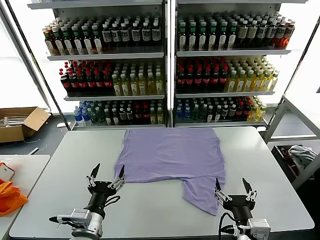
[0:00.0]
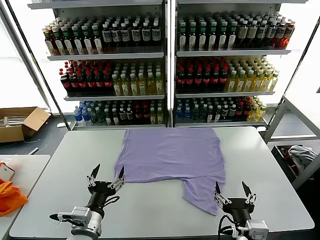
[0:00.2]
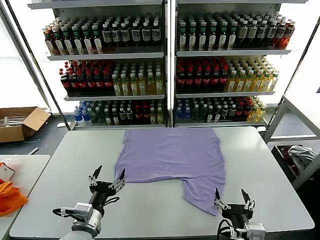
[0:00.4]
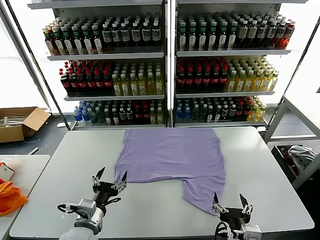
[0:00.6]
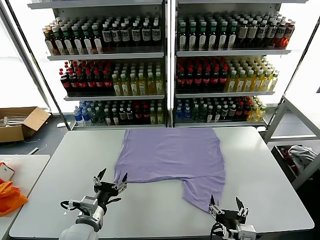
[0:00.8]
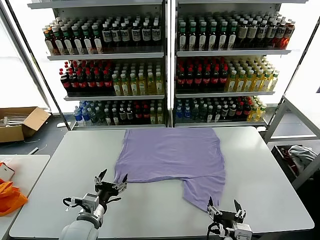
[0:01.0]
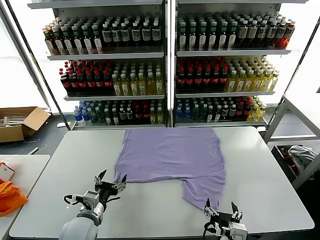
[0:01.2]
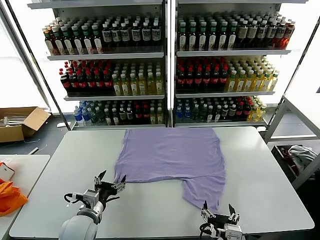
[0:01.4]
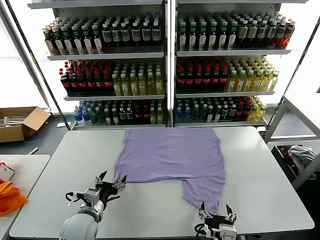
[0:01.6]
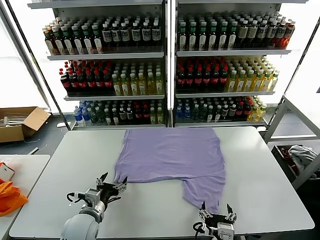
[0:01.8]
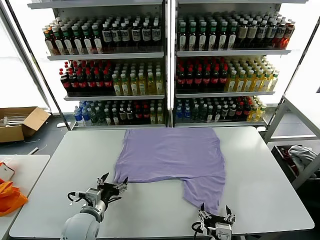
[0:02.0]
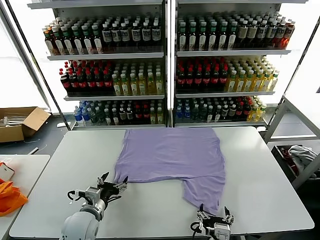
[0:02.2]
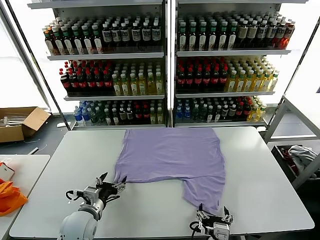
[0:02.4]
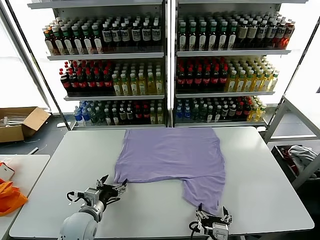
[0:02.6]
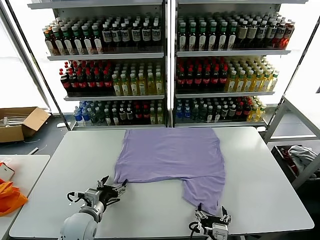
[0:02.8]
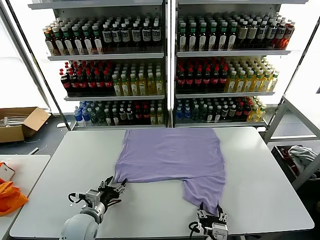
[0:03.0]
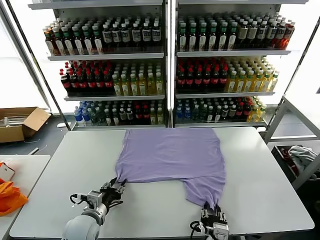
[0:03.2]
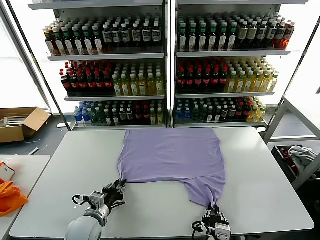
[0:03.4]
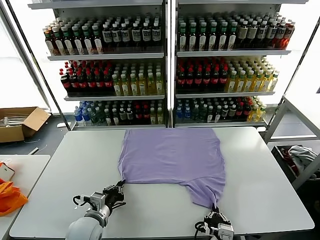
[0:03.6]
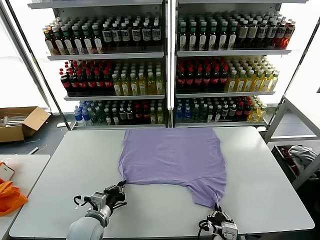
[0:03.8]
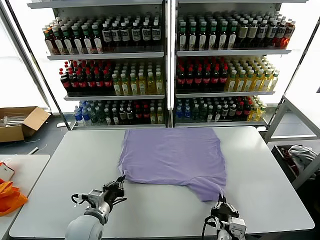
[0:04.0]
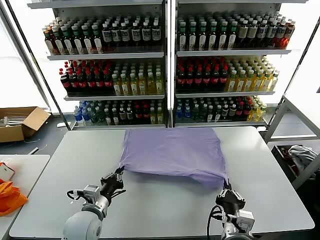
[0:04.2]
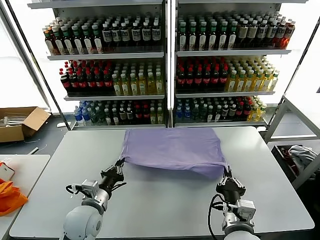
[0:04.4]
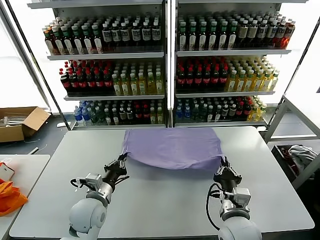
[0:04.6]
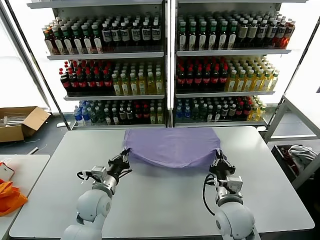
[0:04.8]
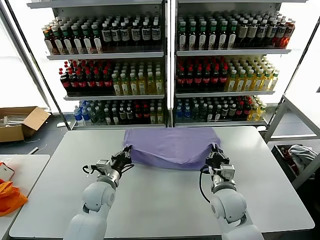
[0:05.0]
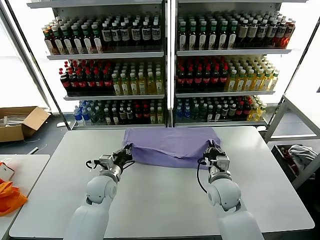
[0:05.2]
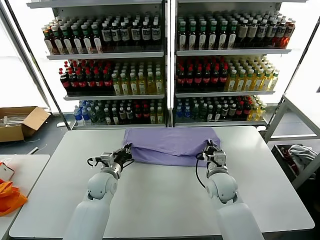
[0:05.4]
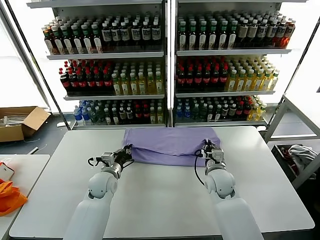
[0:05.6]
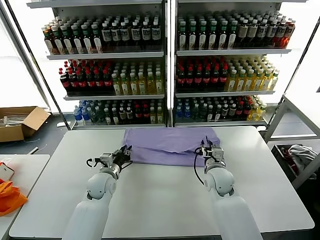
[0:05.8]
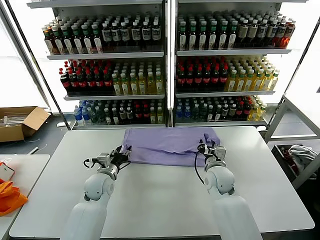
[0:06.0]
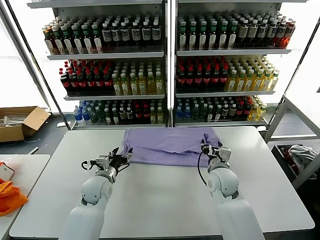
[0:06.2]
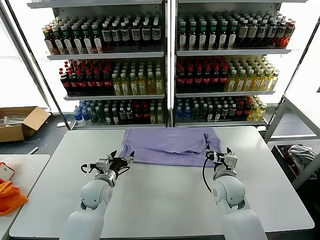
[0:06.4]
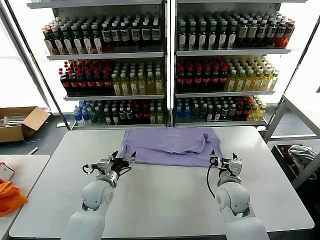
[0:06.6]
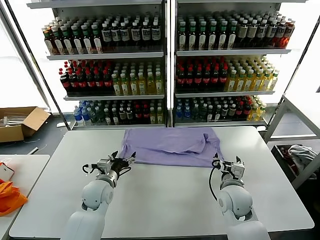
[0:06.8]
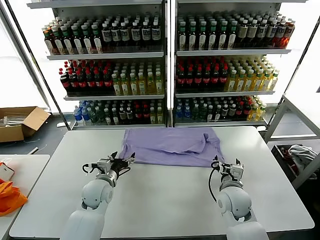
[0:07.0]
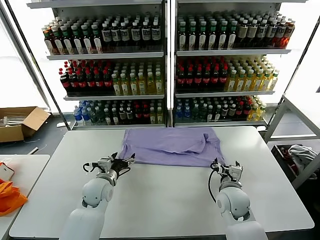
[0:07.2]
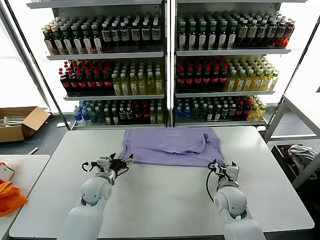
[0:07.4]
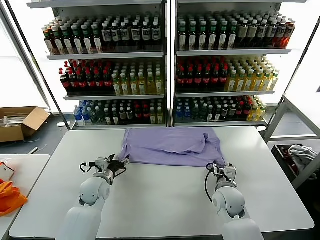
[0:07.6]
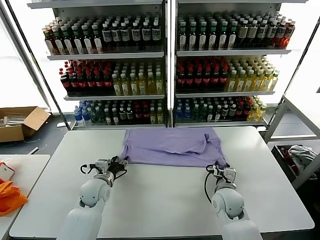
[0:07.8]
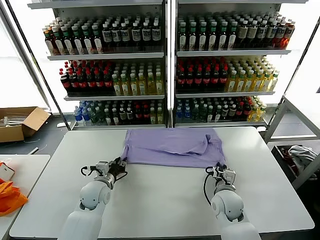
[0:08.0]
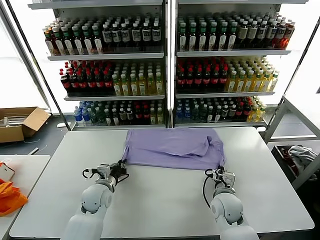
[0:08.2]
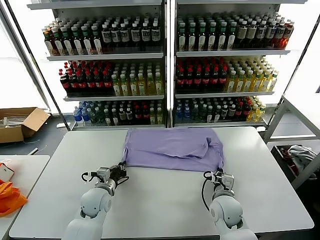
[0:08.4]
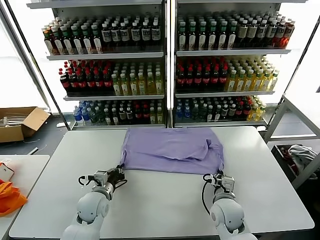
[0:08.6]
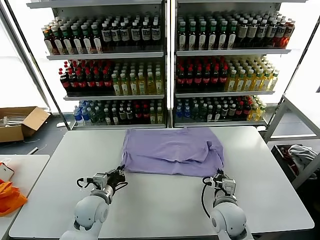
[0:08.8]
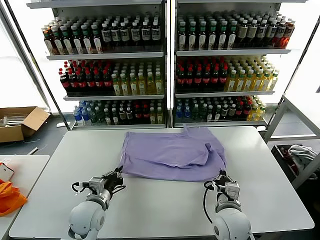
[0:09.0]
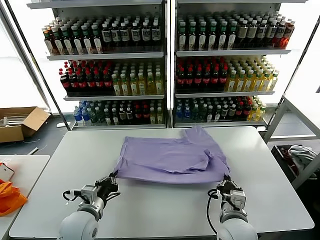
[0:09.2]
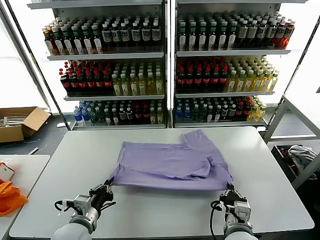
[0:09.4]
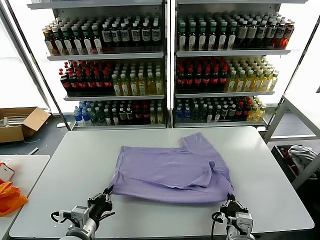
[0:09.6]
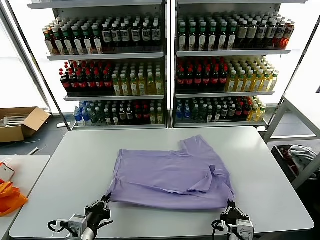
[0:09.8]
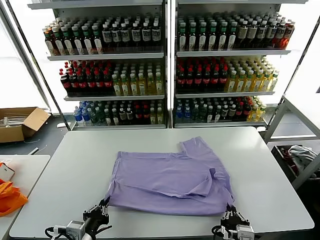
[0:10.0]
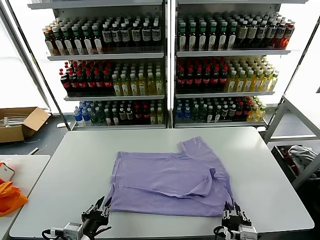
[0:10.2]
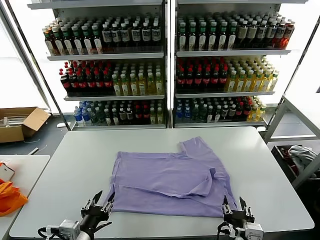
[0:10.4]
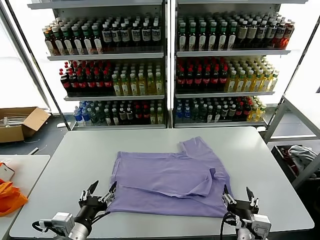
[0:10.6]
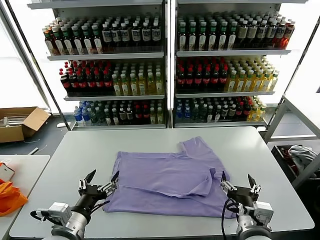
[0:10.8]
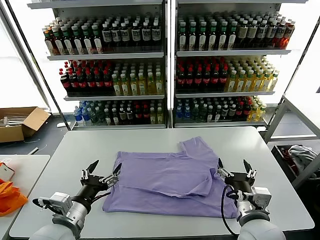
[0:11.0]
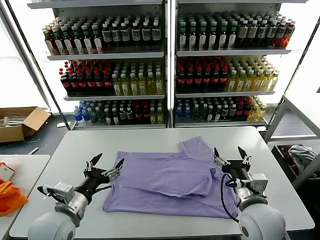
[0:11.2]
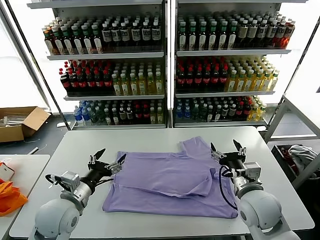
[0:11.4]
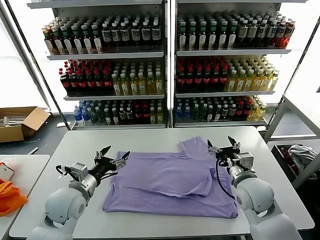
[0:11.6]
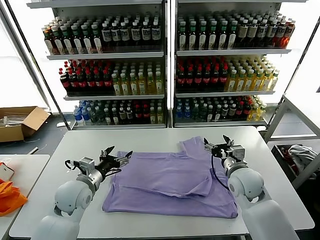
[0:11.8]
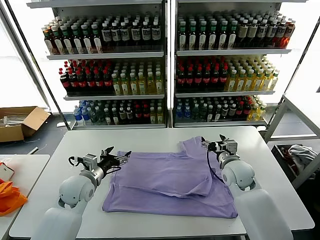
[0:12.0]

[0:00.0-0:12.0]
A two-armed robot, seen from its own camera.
Task of the whole recording: fold and organize the clothes.
Step, 0.0 to 4.0 s: use both grippers simultaneously to clamp the lower edge of the clothing fabric.
Step, 4.2 to 5.8 s: use both grippers to drag the lower edge of the fabric forward and fold it over the upper edge.
Step, 6.2 to 10.2 s: Drag the clothes downward with both gripper.
1.6 to 3.0 s: The right gripper closes.
3.0 to 4.4 s: The right gripper heads upward, to the right and forward, covering some 10 cm, and closes up. Meanwhile the left gripper moves approximately 5 cm, and closes up.
4.4 to 6.0 s: Both grippers move forward, some 15 cm. The left gripper opens; the right gripper opens up.
6.0 to 7.6 s: The right gripper is displaced backward by about 5 cm.
7.6 to 9.0 s: Both grippers travel together backward, some 10 cm. The left gripper closes up; the right gripper closes its fingers.
9.0 to 10.4 s: Both grippers travel together backward, some 15 cm. The right gripper opens up. Meanwhile the left gripper opens its fingers.
10.4 to 12.0 s: The two grippers go roughly 25 cm forward. The left gripper opens.

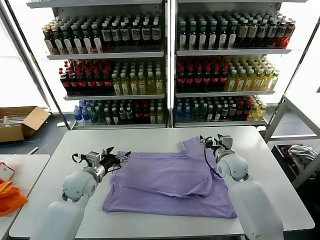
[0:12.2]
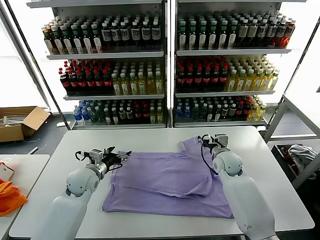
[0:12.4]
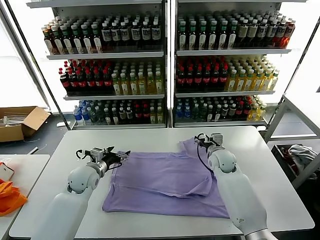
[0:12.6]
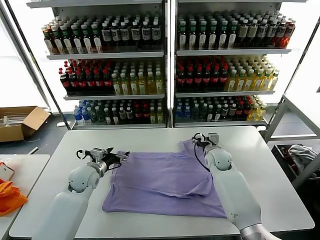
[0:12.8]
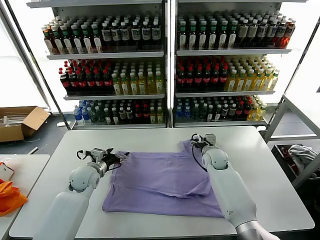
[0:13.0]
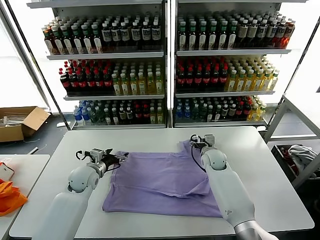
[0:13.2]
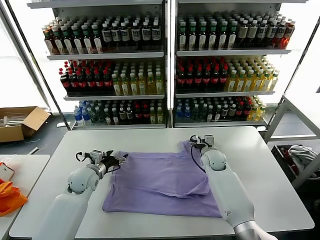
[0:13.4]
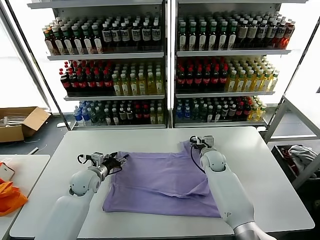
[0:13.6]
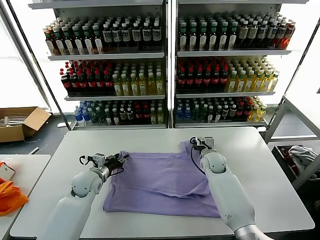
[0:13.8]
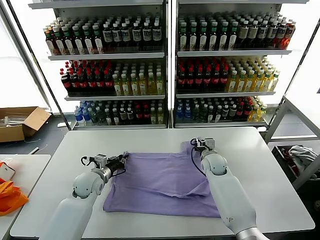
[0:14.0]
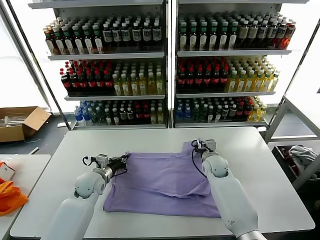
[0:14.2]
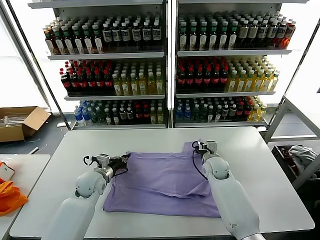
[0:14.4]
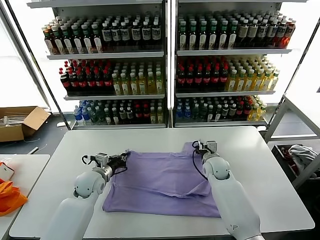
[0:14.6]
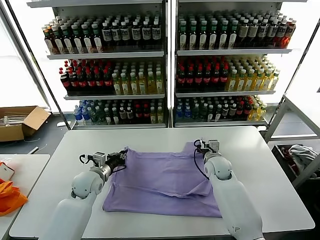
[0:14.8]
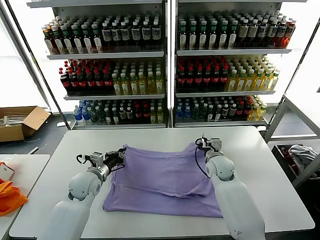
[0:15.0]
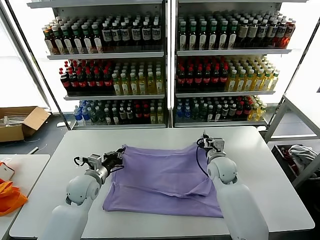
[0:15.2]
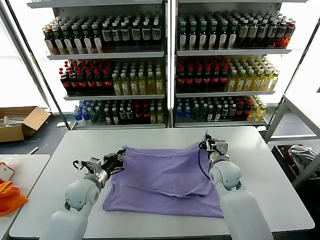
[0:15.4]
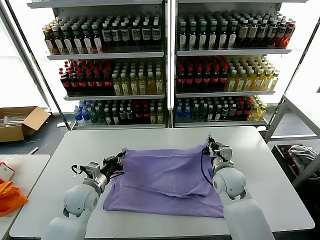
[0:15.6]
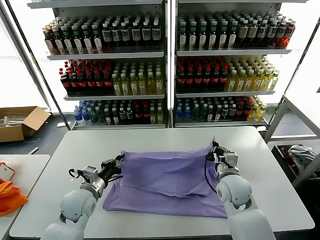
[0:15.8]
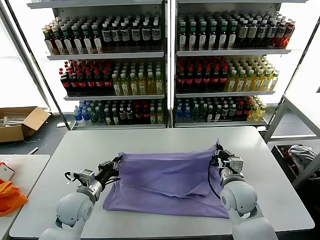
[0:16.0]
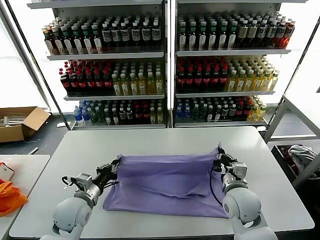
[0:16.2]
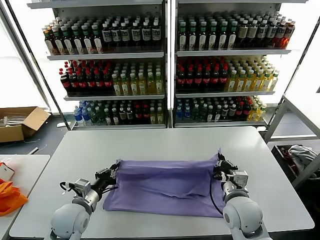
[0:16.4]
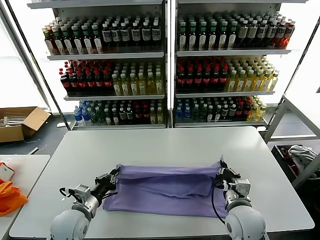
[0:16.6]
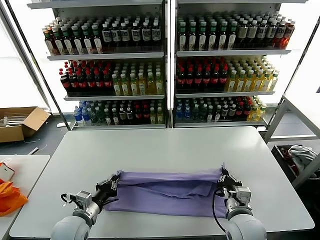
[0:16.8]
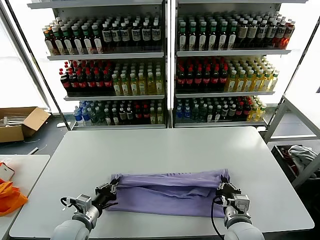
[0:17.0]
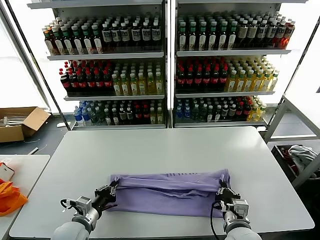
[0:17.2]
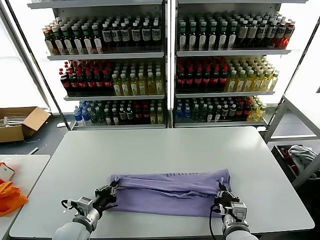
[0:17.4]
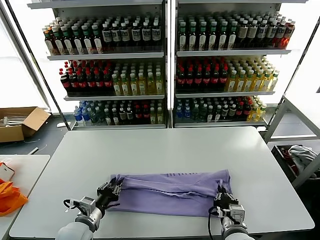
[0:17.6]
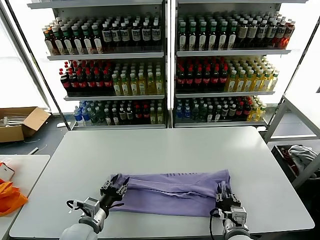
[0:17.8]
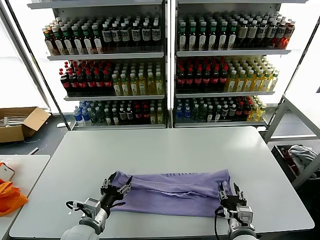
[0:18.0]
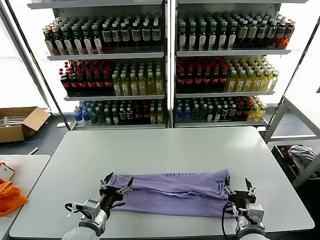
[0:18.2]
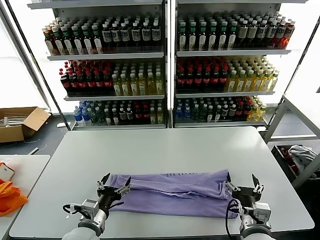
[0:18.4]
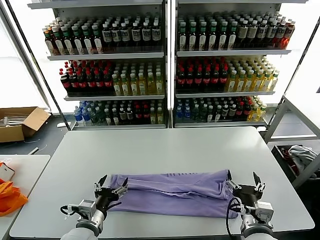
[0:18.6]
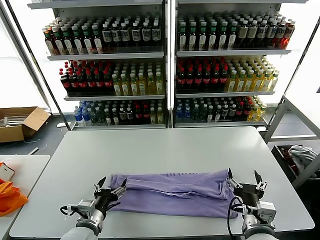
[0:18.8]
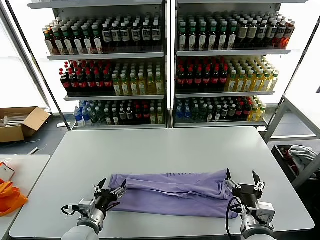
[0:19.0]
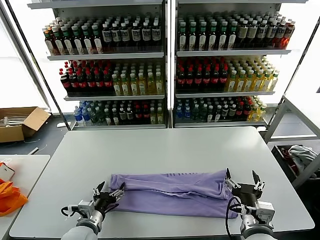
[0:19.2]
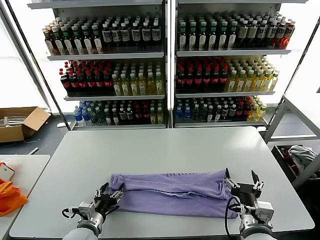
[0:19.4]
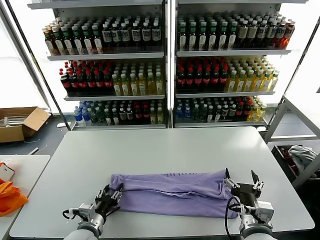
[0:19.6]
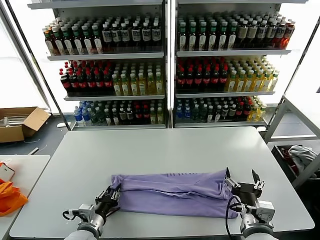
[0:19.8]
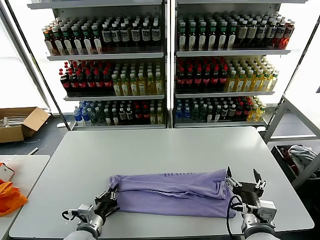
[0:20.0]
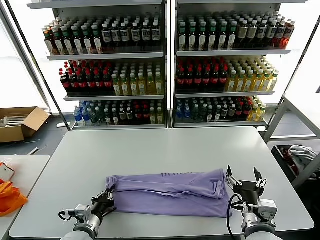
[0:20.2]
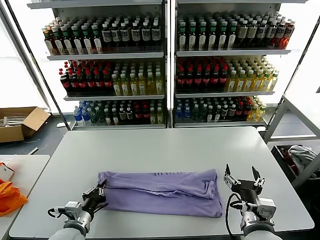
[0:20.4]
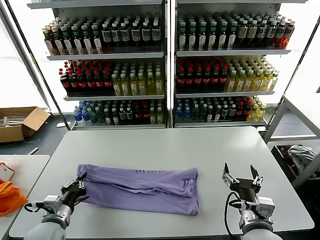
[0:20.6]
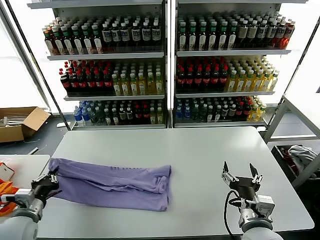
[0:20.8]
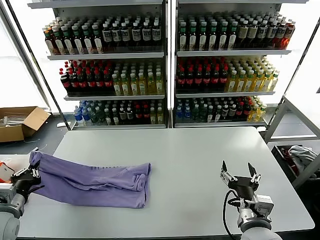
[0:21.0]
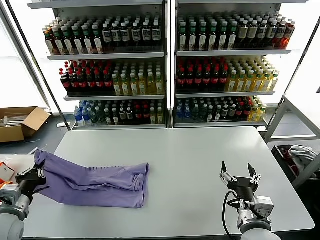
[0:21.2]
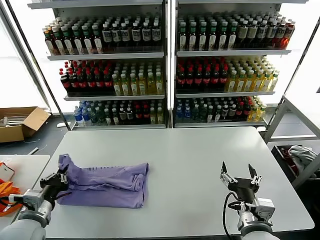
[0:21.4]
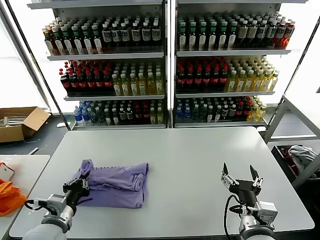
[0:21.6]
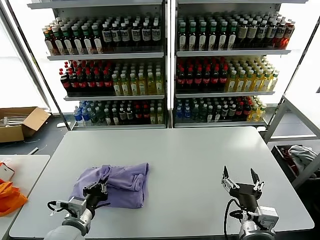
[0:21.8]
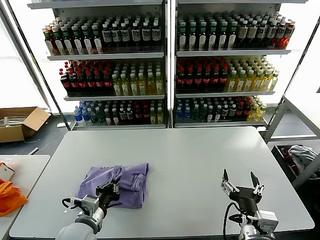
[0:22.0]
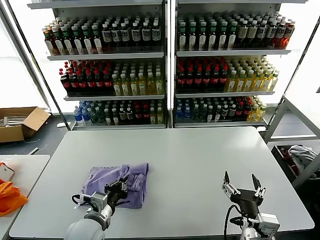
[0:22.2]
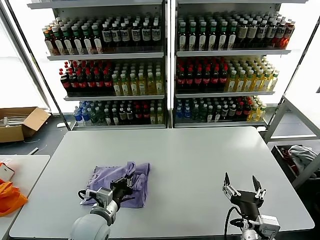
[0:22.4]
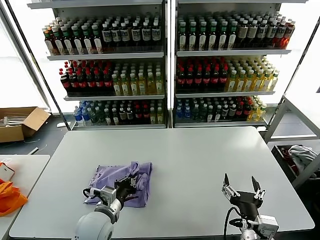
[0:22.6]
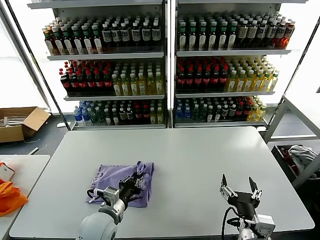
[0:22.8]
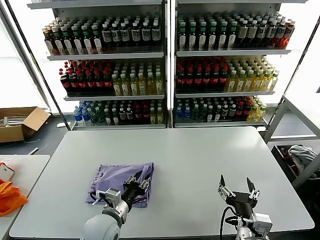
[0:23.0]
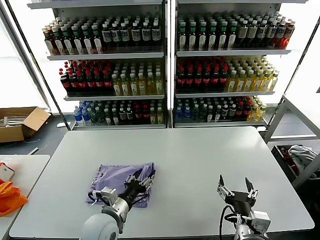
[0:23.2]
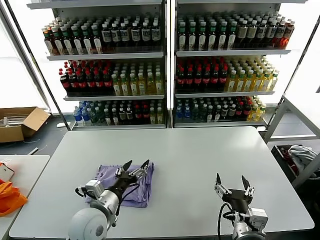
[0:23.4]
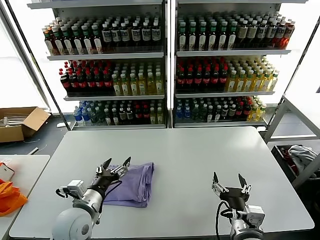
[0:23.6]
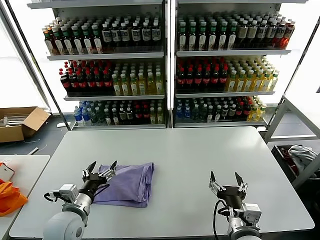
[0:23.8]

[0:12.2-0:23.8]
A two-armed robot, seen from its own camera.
Task of the whole recording: fold and organize the clothes.
Step, 12.2 to 14.6 s: use both grippers simultaneously to clamp the upper edge of the clothing fabric.
Step, 15.0 to 17.8 s: use both grippers to drag the upper edge of the fabric backward and fold it over the lower edge.
Step, 18.2 to 20.0 s: use the left gripper to clamp the left edge of the fabric.
Step, 20.2 to 23.0 s: use the left gripper to drag the left edge of the fabric to the left and folds it over the right edge.
12.2 to 13.6 s: The right gripper is displaced downward and forward by some 10 cm, while the left gripper ends up approximately 5 cm from where it was.
13.6 to 15.0 s: The left gripper closes; the right gripper travels backward by roughly 5 cm, and closes up.
15.0 to 16.6 s: The right gripper goes some 20 cm backward, while the left gripper is displaced backward by some 15 cm.
16.6 to 18.0 s: The left gripper moves roughly 5 cm, and opens; the right gripper is displaced backward by roughly 5 cm, and opens.
18.0 to 19.4 s: The right gripper travels upward by about 5 cm, and opens its fingers.
19.4 to 21.0 s: The left gripper travels to the left and upward by about 20 cm, and closes.
21.0 to 22.4 s: The left gripper goes about 25 cm to the right.
22.4 to 23.8 s: The left gripper goes some 5 cm to the left, and opens up.
